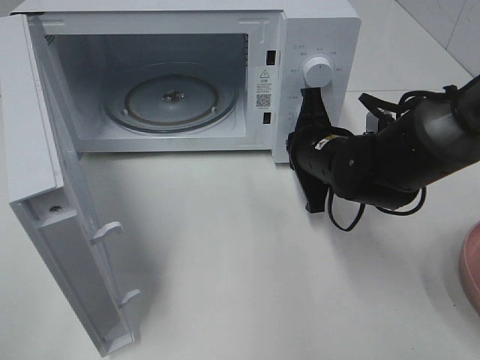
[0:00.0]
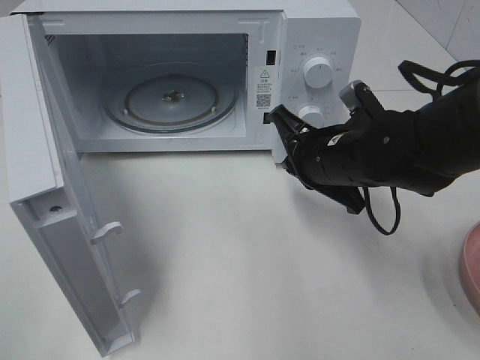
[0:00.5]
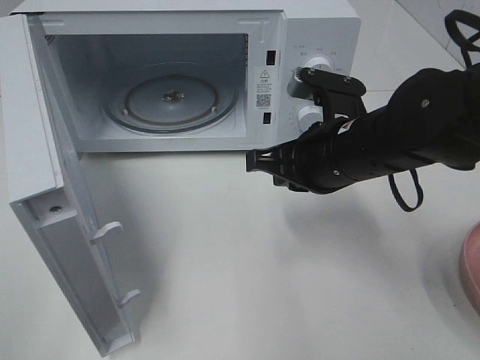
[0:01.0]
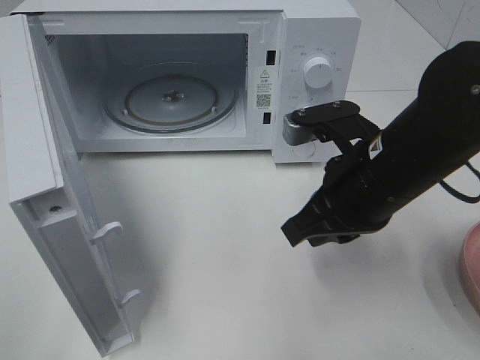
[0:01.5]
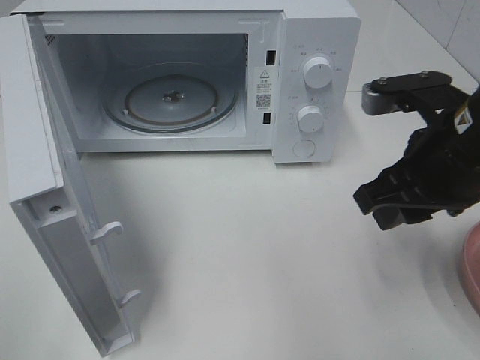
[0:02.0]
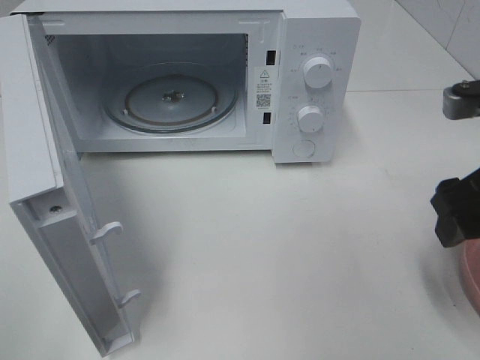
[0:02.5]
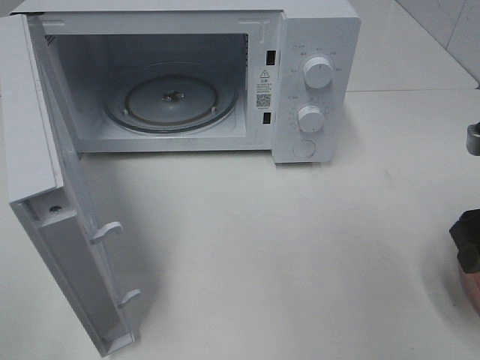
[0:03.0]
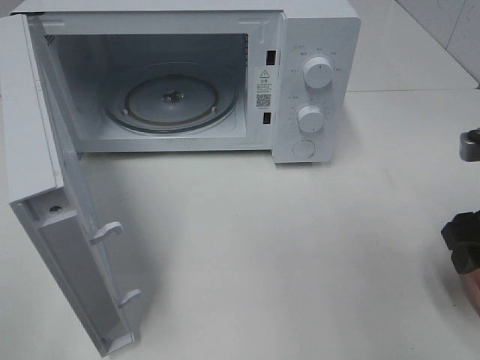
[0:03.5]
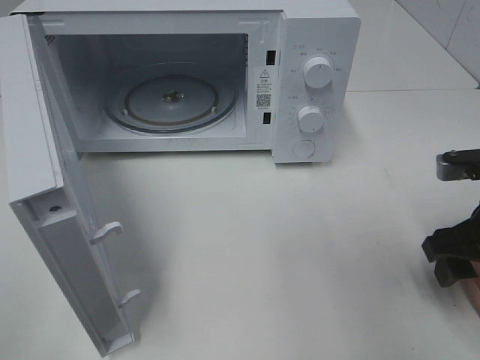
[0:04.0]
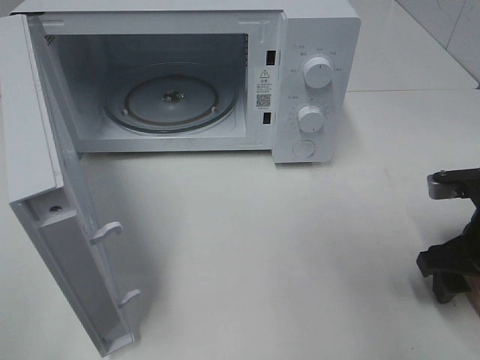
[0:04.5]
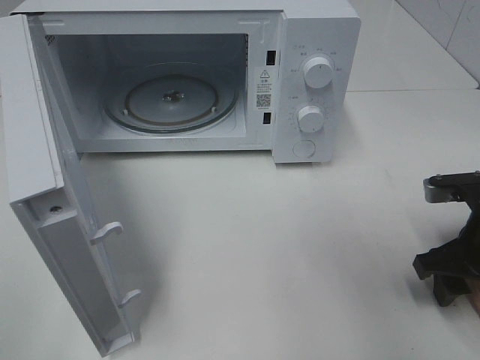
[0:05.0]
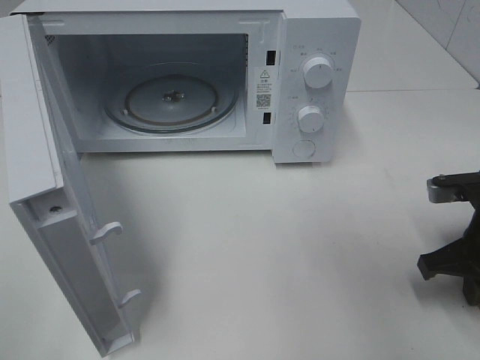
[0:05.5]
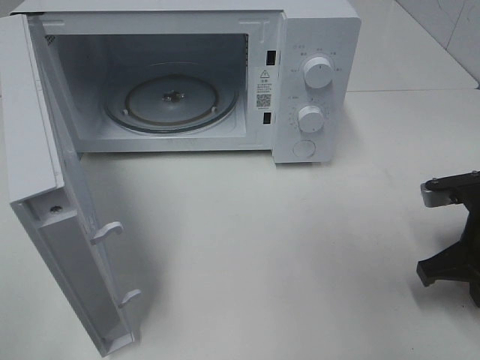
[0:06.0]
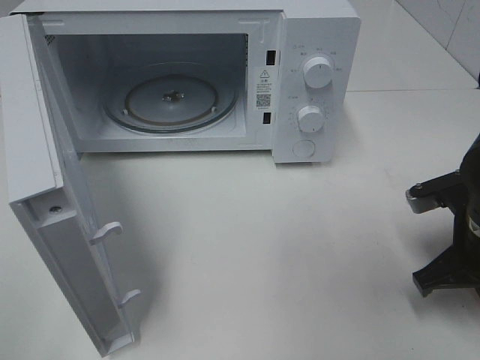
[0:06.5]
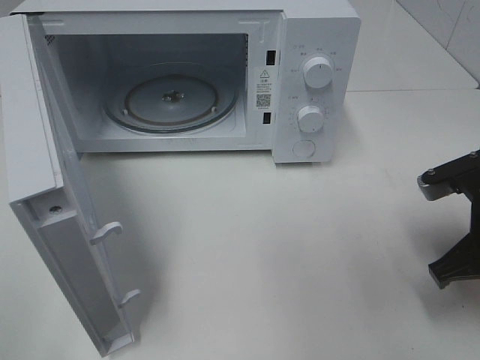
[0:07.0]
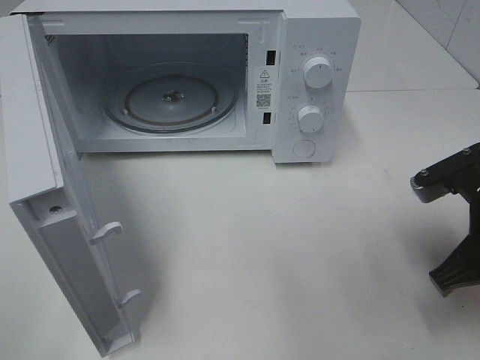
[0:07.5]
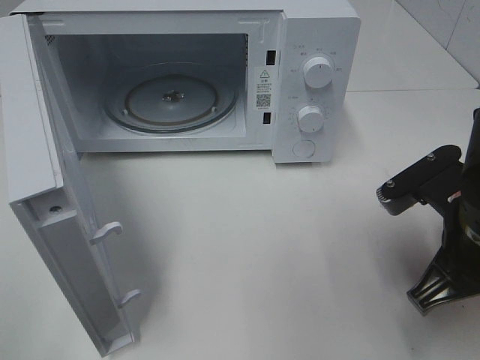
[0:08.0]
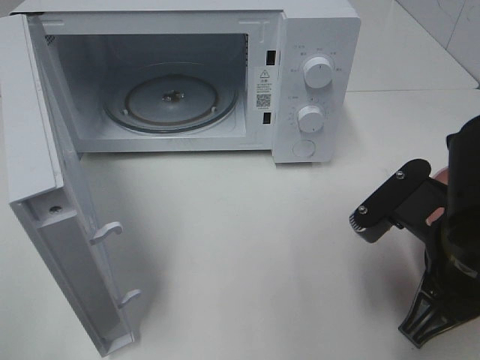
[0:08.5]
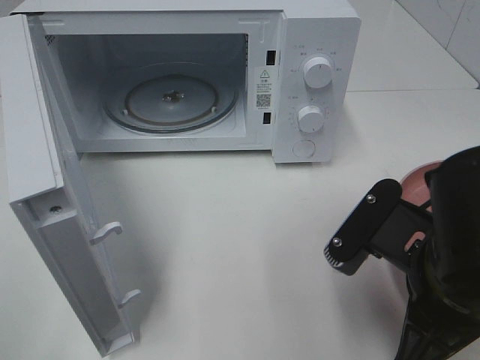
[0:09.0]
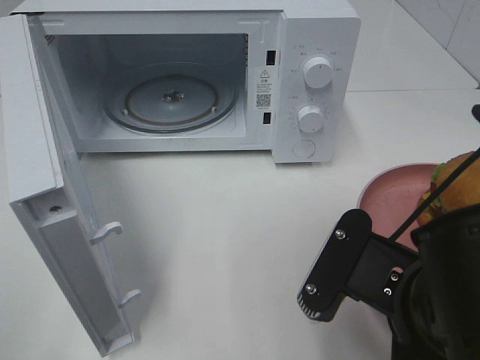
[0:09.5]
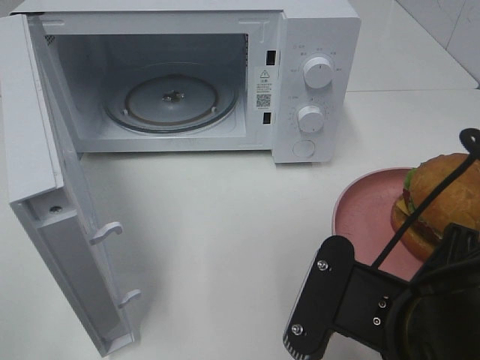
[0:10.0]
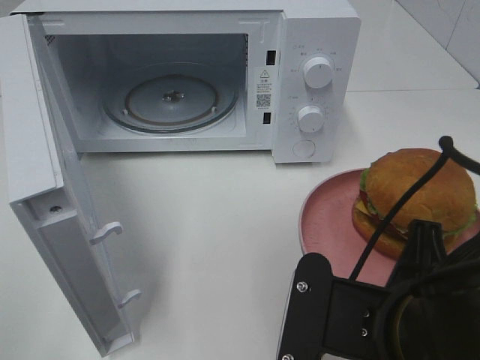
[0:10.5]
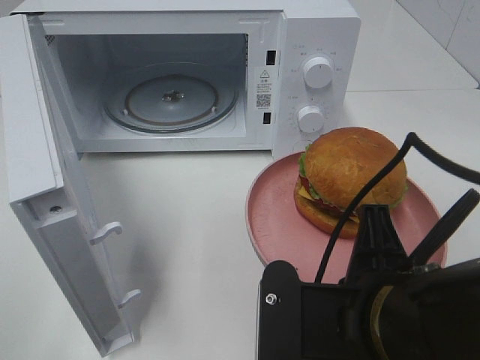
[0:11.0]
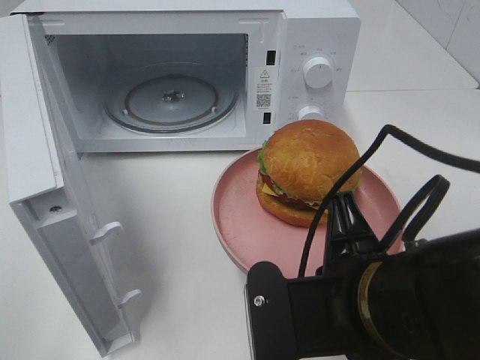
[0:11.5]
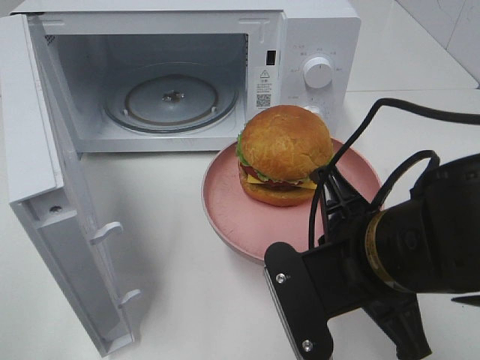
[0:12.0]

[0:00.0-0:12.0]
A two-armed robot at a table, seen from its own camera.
Task of the whole recording: Heat the burger.
Step, 0:00.0 to 0:06.0: Right hand: grab the plate with the hamburger.
0:00.0 to 0:02.0: The right gripper shifts about 15 cm upward, backward and to the right, and opens its fingers.
0:02.0 to 0:04.0: The right gripper is displaced downward and to the right by roughly 10 cm.
0:04.0 to 0:06.0: The right gripper closes.
0:06.0 to 0:08.0: The right gripper is displaced to the left and upward by some 10 cm.
0:08.0 to 0:10.0: The right gripper goes roughly 10 cm backward and to the left.
0:10.0 to 0:12.0: The right gripper is displaced forward by some 5 cm.

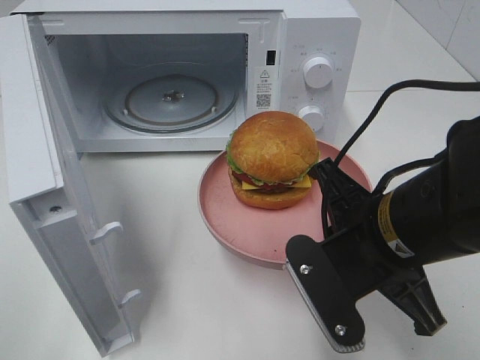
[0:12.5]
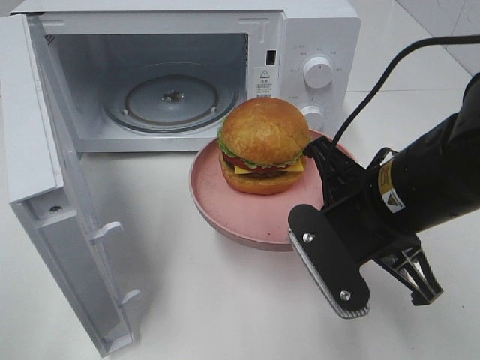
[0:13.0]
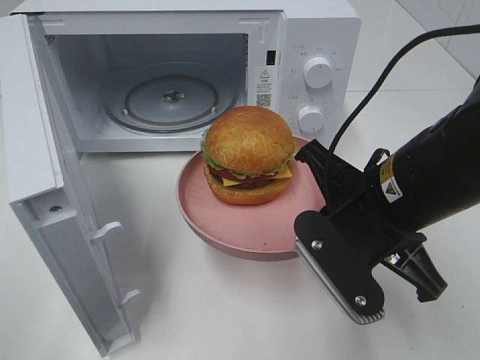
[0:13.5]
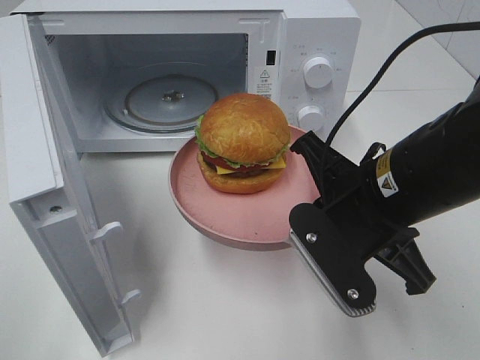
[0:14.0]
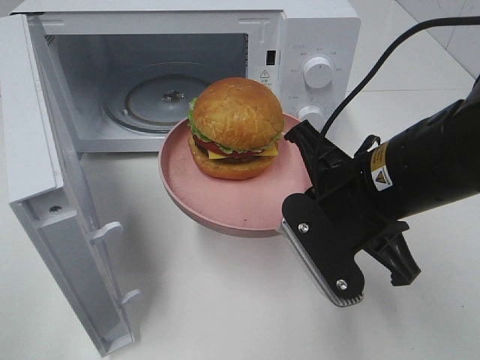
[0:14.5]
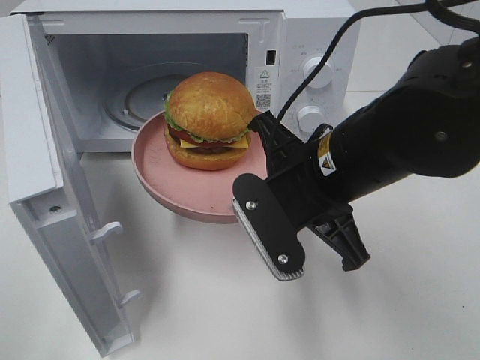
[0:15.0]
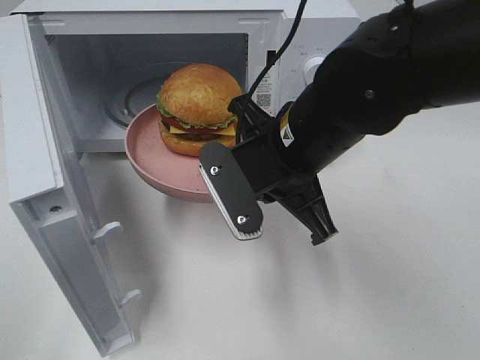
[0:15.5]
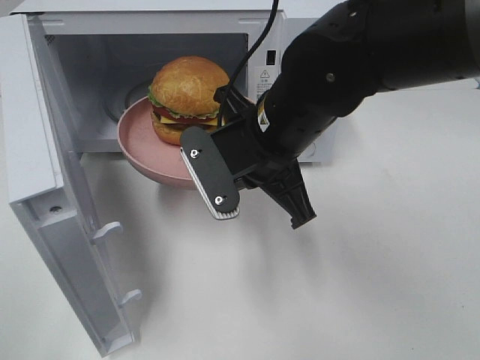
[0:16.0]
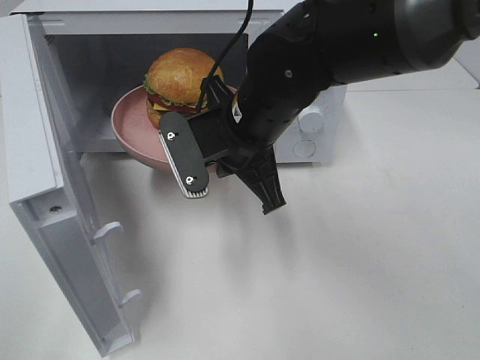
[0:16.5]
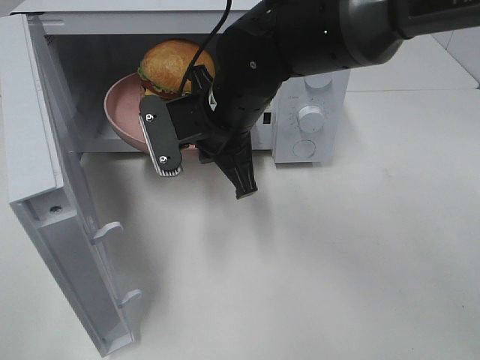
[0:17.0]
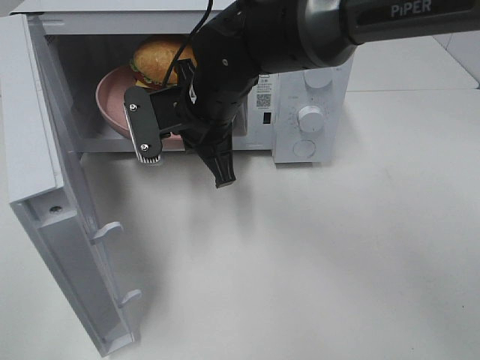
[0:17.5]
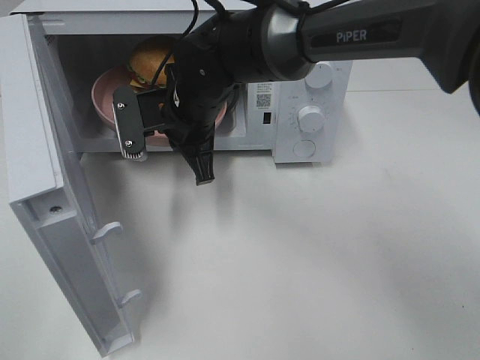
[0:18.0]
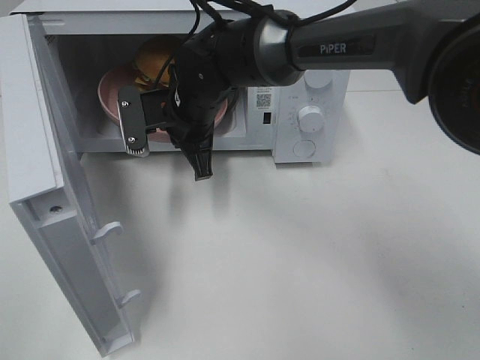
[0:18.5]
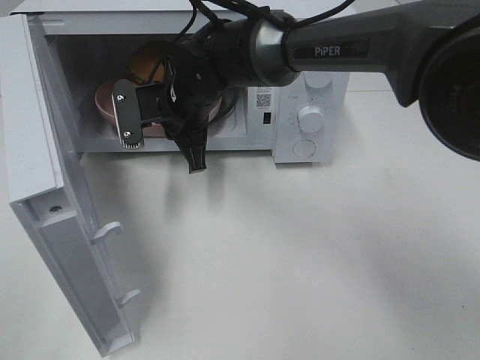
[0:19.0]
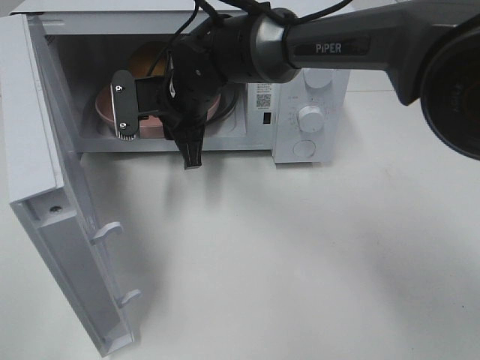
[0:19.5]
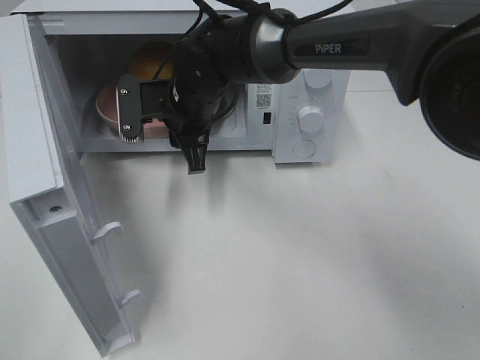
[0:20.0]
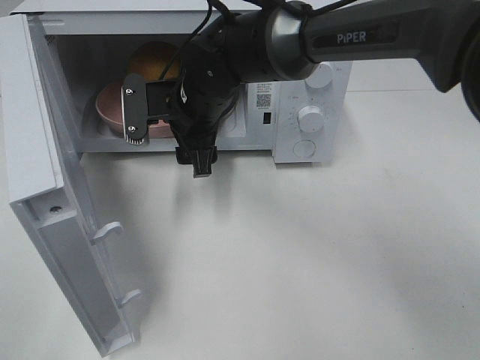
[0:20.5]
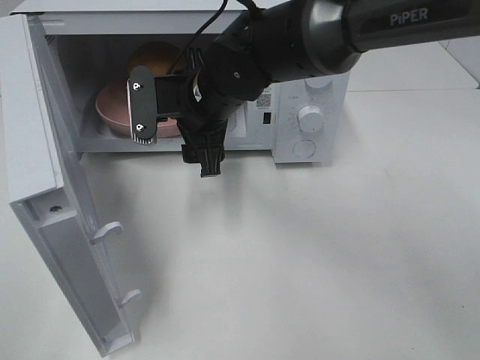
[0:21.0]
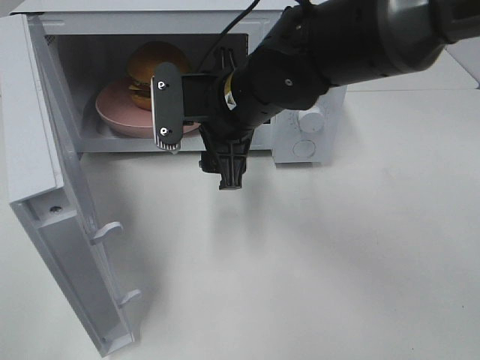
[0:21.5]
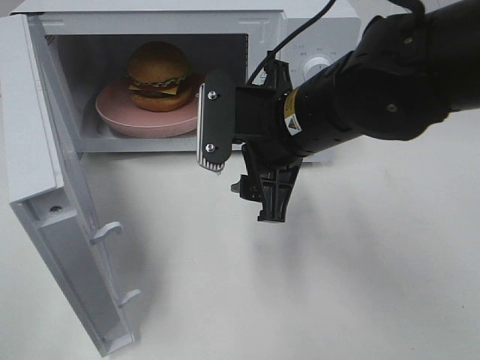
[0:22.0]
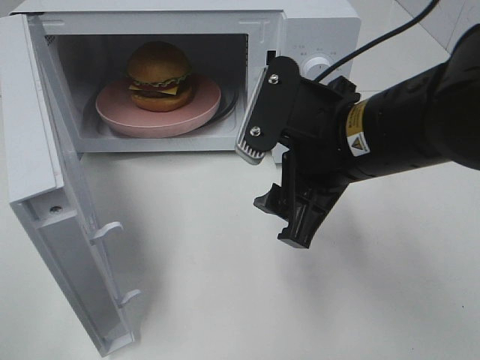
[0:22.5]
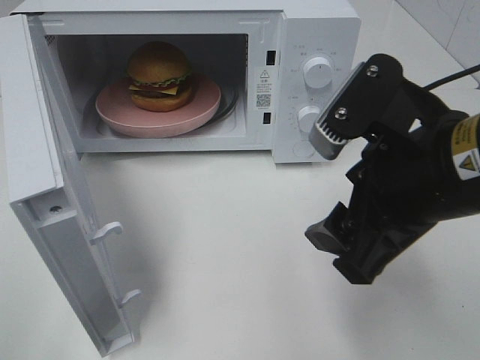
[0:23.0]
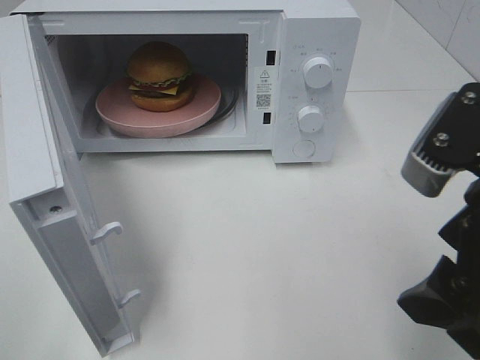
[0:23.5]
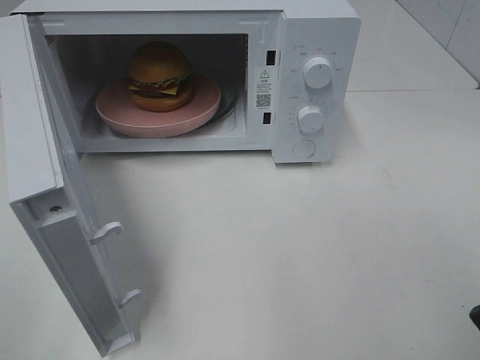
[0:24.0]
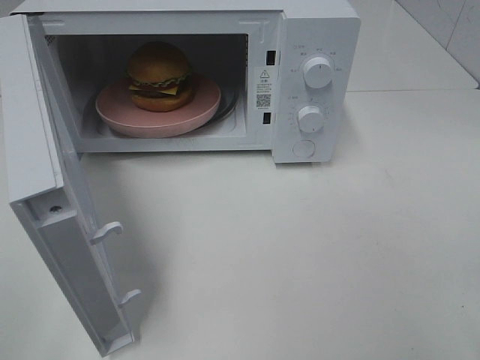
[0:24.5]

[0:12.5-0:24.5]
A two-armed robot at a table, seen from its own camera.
Task of the whole recording: Heat the burger.
Step, 0:12.5 to 0:19.5: Right hand: place the plate in the microwave.
0:14.5 to 0:16.5: The right gripper shifts some 15 cm to the left and forward.
0:16.5 to 0:18.5: The right gripper travels forward and to the left by roughly 10 cm.
0:18.5 to 0:20.5: The right gripper opens its fingers.
0:20.5 to 0:22.5: The right gripper moves backward and to the right, roughly 20 cm.
0:22.5 to 0:24.5: The right gripper shifts roughly 25 cm to the right and backward.

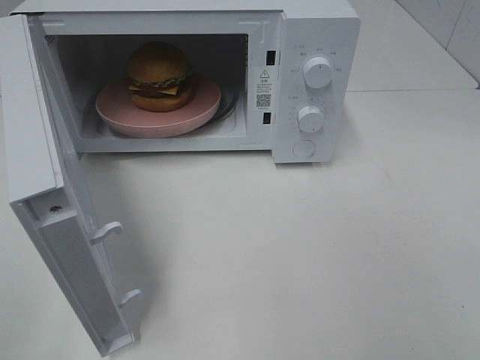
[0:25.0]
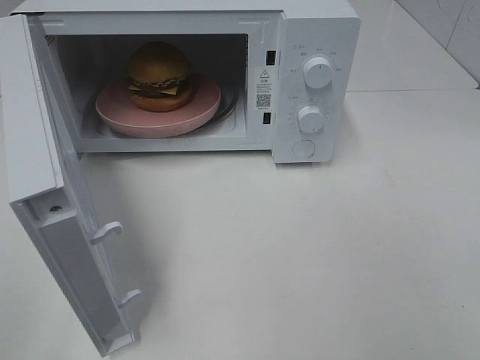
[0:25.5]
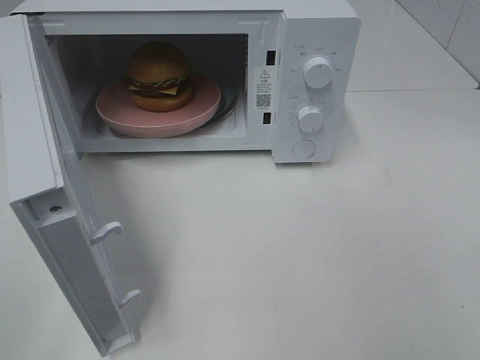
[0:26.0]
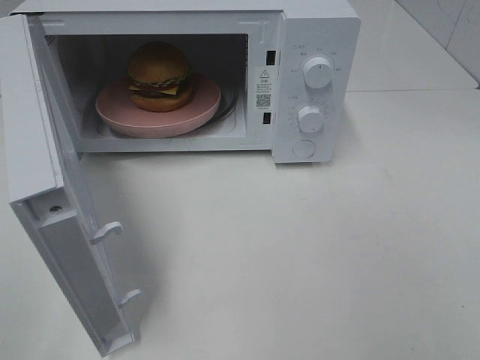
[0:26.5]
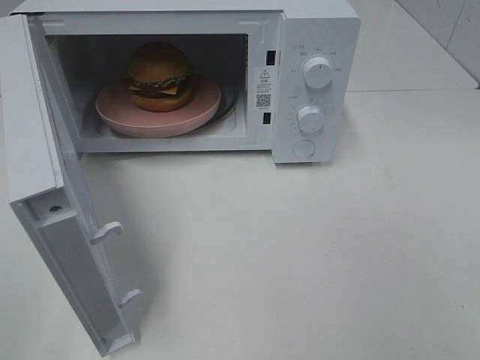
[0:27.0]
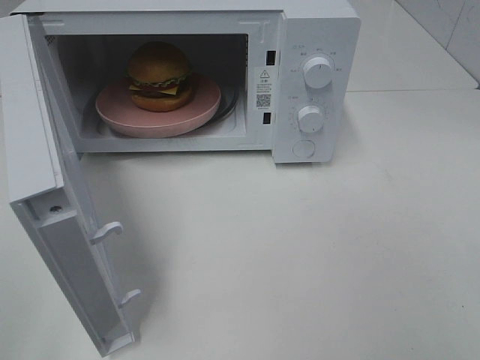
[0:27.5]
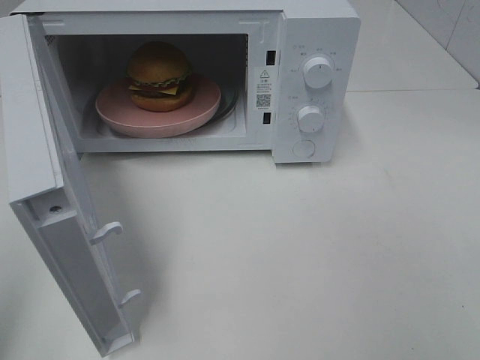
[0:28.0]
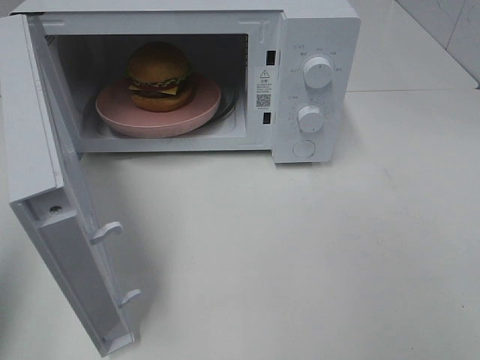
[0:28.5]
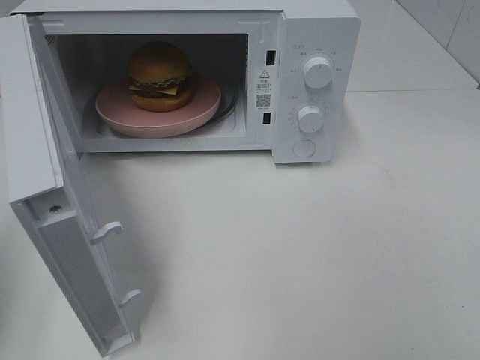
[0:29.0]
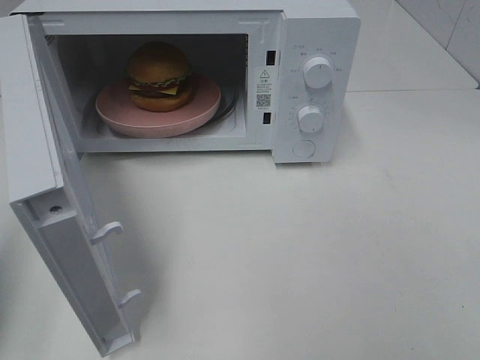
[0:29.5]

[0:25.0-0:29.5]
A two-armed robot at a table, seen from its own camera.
Task of the whole recording: Heat the burger.
0:27.0 to 0:29.5: The left gripper goes roughly 15 cm forward, and closes.
